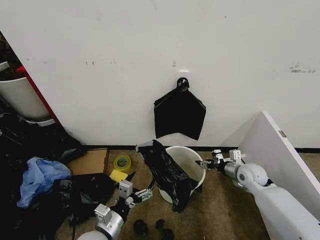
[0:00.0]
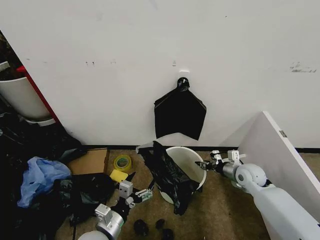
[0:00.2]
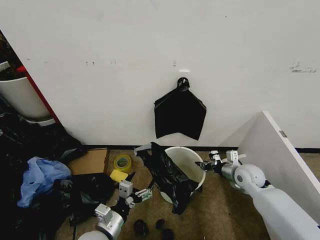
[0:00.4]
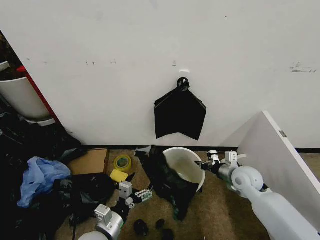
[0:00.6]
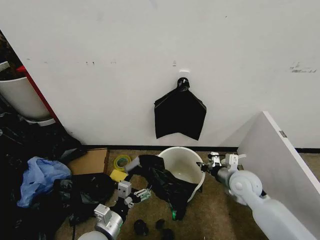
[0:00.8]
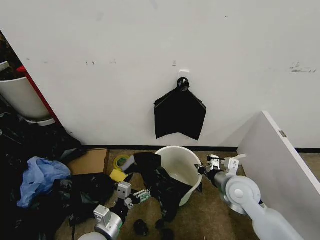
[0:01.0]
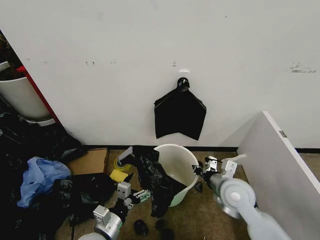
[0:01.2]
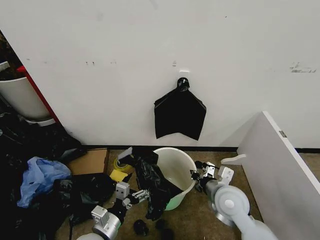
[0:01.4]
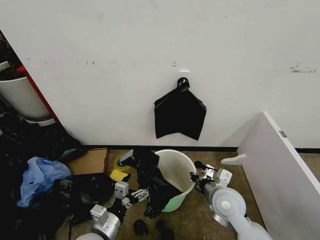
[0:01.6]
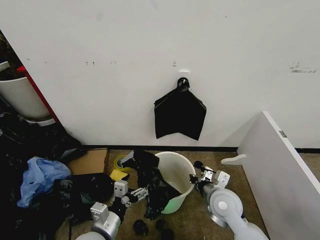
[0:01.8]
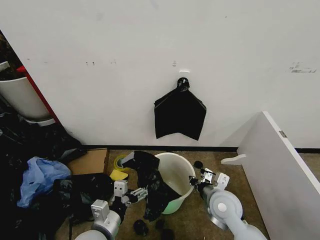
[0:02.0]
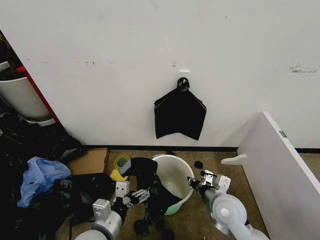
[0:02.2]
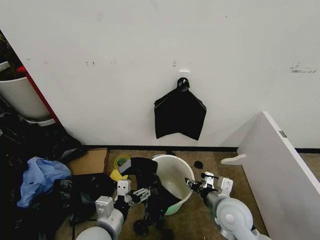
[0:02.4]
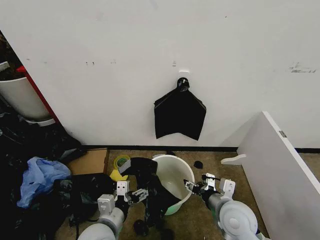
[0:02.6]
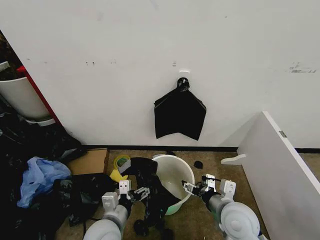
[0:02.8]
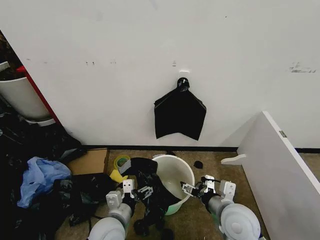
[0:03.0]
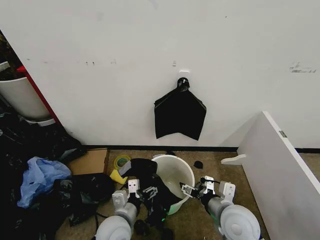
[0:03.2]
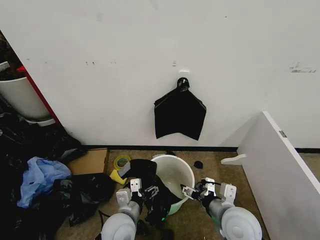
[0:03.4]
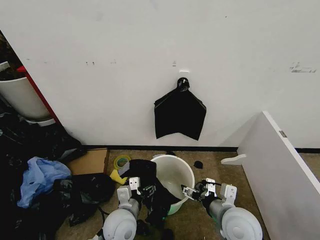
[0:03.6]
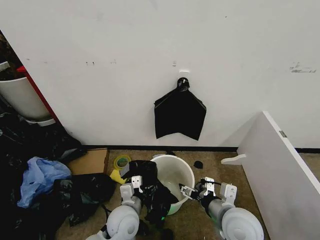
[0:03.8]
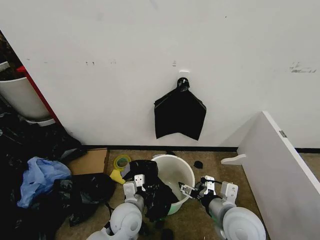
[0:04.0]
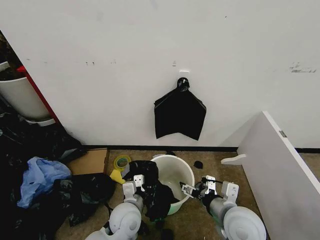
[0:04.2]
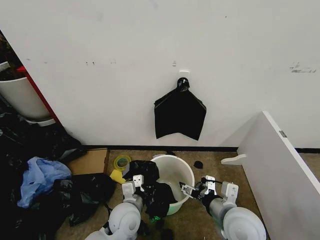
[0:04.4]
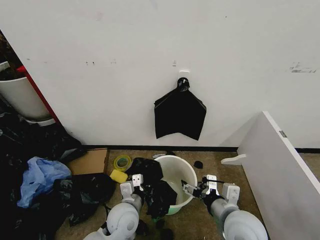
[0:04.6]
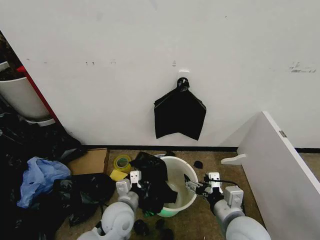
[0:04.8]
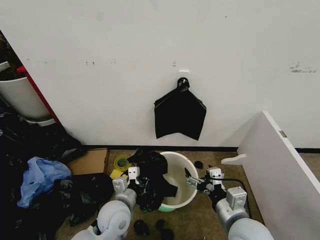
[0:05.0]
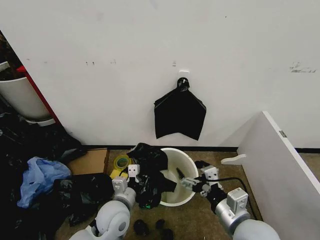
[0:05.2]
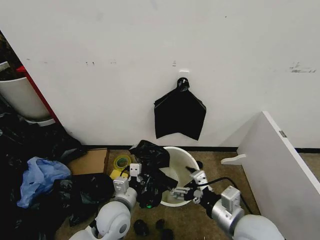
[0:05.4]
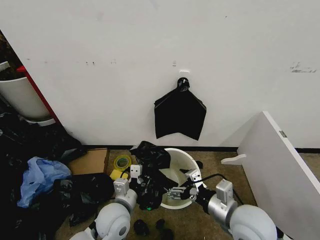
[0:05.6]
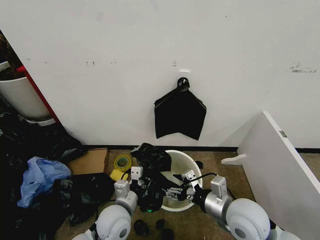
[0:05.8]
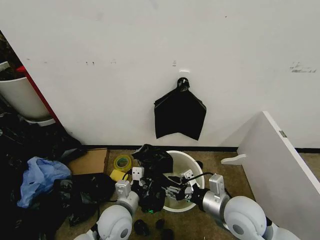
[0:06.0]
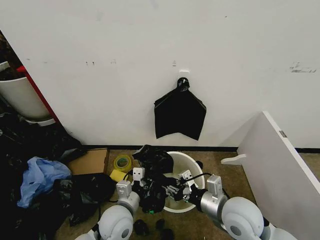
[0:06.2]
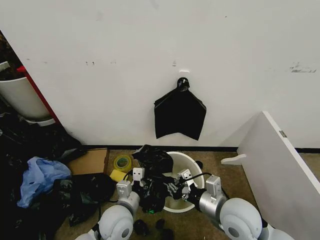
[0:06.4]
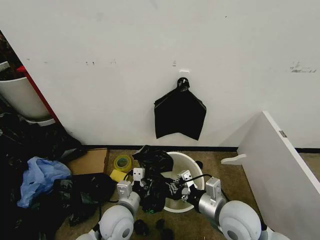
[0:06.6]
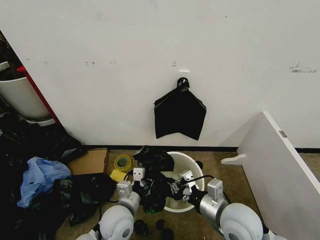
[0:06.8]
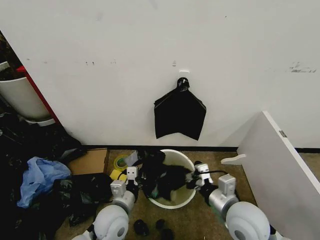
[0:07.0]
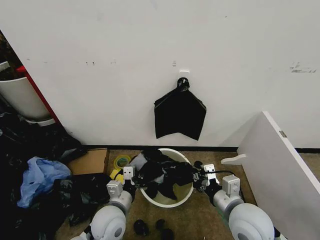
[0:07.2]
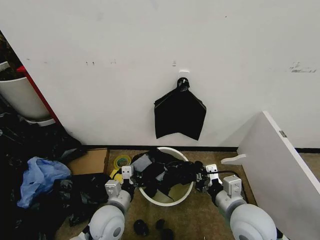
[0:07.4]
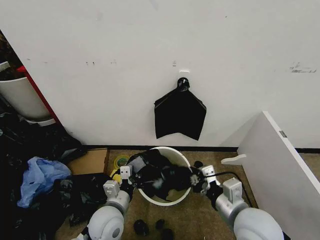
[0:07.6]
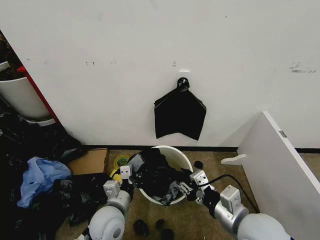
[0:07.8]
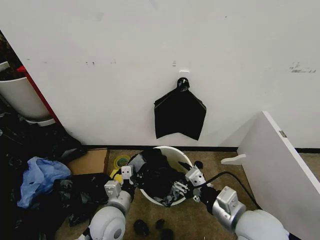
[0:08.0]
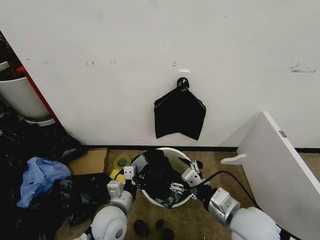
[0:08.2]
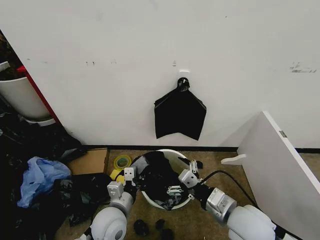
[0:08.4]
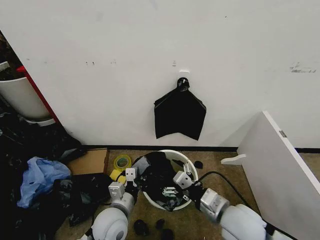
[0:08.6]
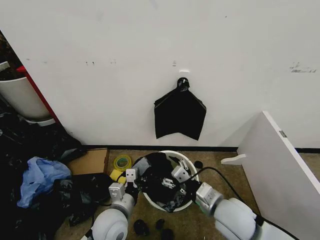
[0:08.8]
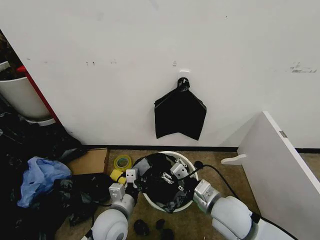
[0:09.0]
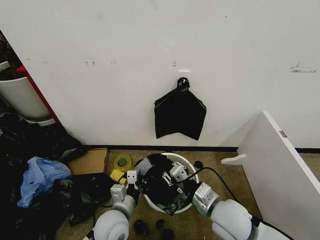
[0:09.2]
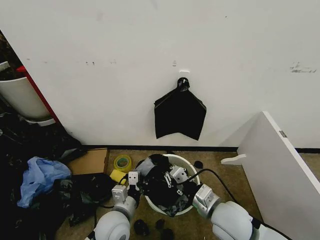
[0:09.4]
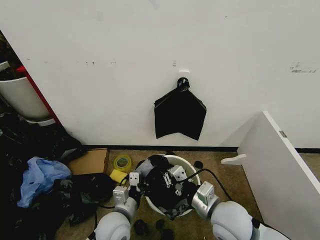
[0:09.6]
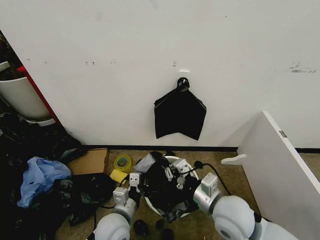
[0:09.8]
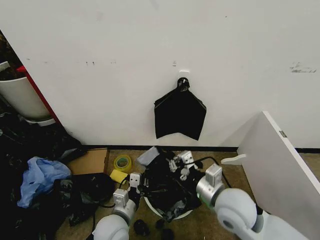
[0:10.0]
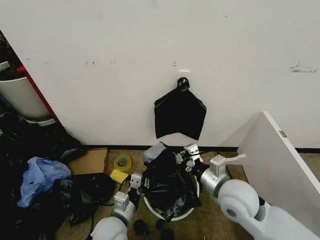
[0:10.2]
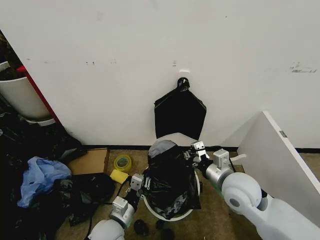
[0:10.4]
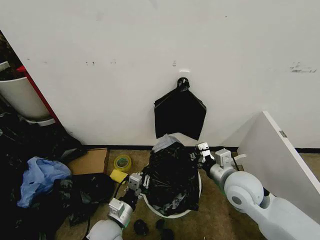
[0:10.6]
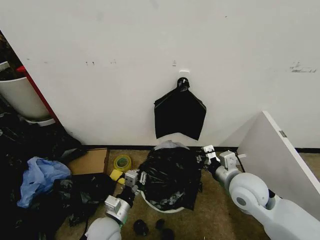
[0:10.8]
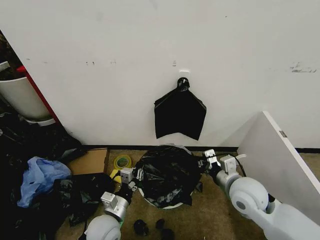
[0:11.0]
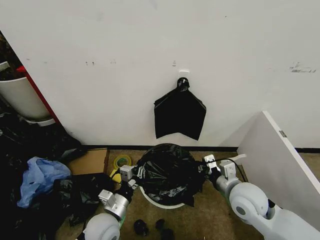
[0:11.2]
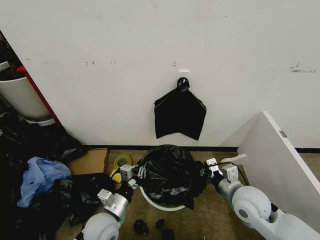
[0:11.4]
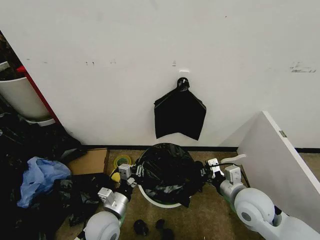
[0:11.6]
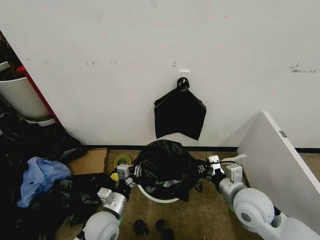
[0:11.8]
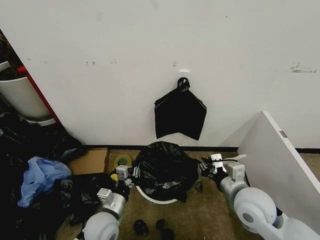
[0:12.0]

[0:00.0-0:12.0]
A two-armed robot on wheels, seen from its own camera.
Task of the whole recording: Place the garbage bag over the trash bin.
0:00.0 to 0:01.6: The right gripper goes approximately 20 cm to the left and backward, and closes up.
0:01.6 to 0:03.0: The left gripper shifts by approximately 5 cm. The right gripper shifts approximately 5 cm backward, and opens up.
0:03.0 to 0:04.4: The left gripper ends up some 5 cm from where it was, and closes up.
0:04.4 to 0:06.0: The right gripper closes its fingers. Meanwhile the left gripper closes up.
0:06.0 to 0:07.6: The right gripper closes up.
0:07.6 to 0:09.0: The right gripper changes place by roughly 5 cm, and opens up.
0:09.0 to 0:10.4: The right gripper shifts about 5 cm forward, and closes its fingers.

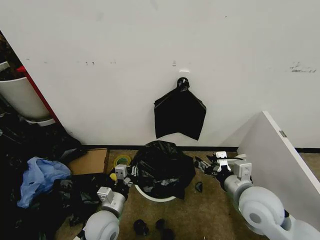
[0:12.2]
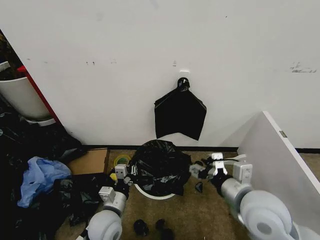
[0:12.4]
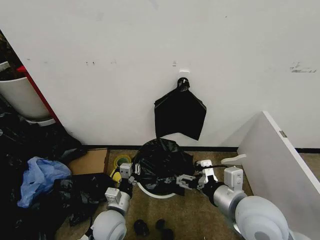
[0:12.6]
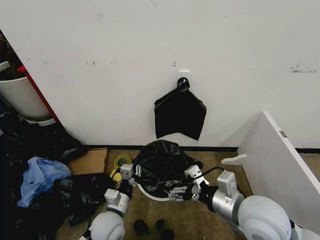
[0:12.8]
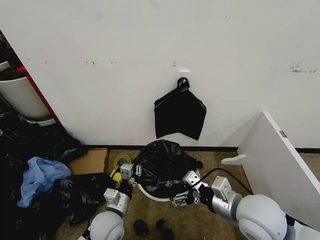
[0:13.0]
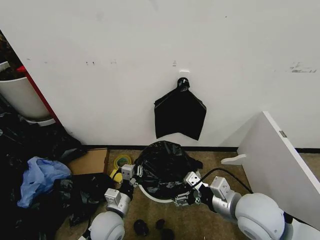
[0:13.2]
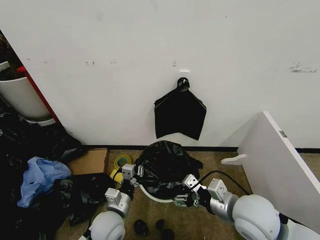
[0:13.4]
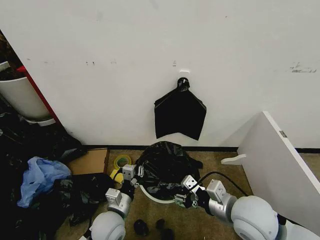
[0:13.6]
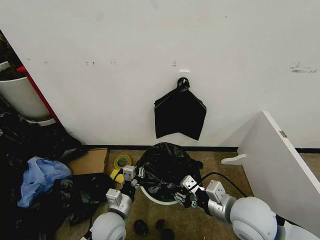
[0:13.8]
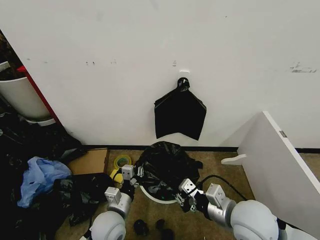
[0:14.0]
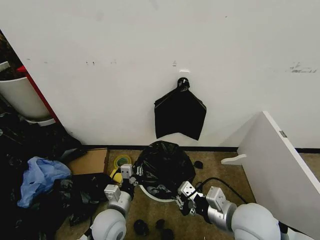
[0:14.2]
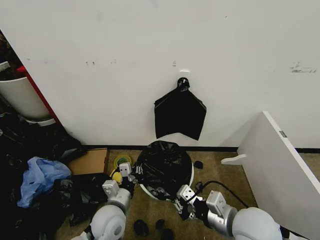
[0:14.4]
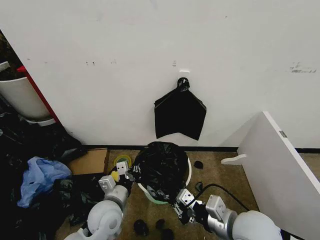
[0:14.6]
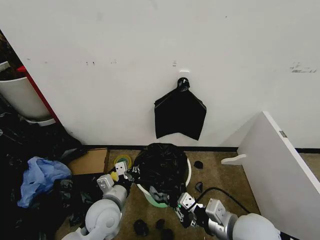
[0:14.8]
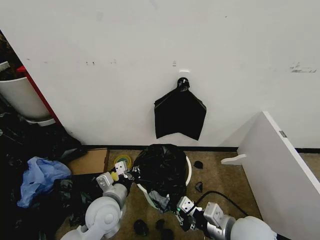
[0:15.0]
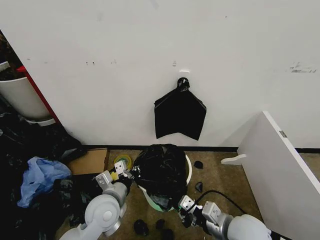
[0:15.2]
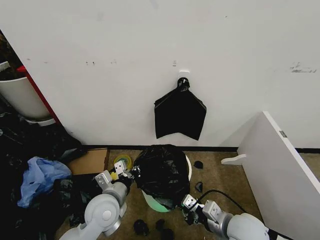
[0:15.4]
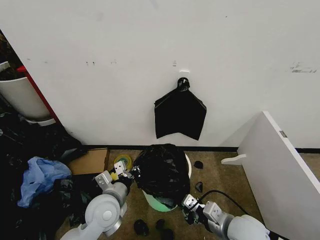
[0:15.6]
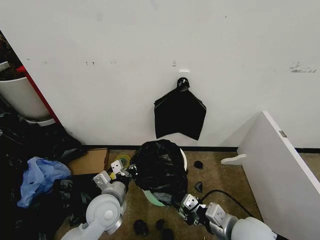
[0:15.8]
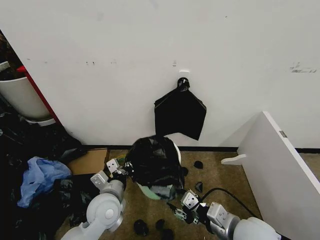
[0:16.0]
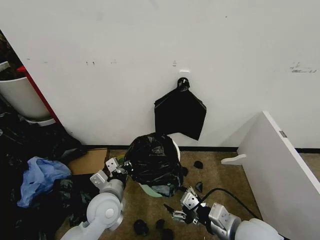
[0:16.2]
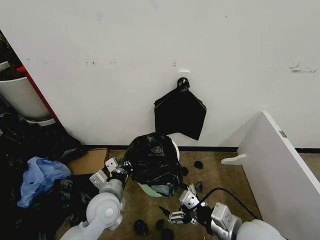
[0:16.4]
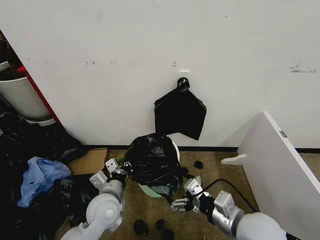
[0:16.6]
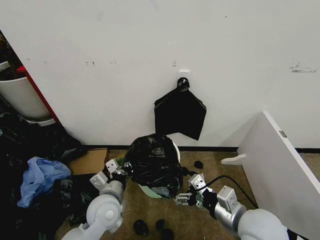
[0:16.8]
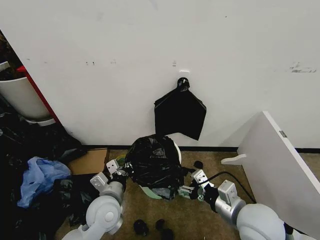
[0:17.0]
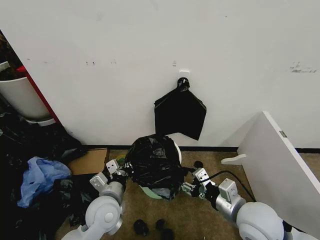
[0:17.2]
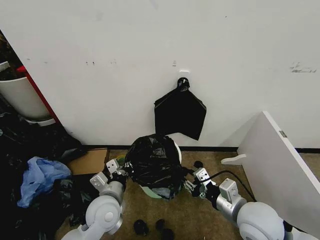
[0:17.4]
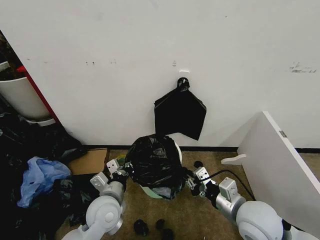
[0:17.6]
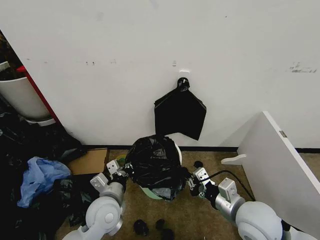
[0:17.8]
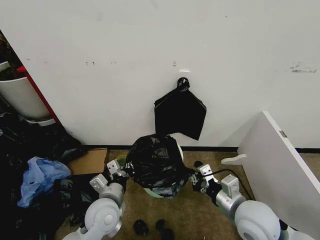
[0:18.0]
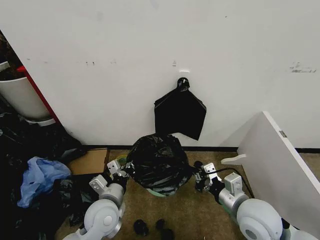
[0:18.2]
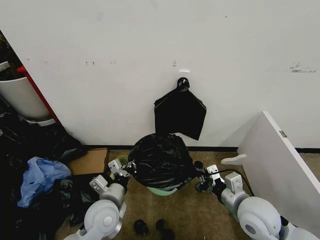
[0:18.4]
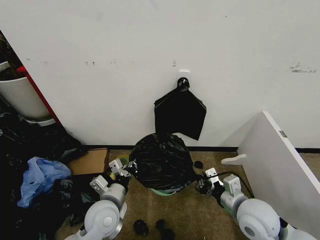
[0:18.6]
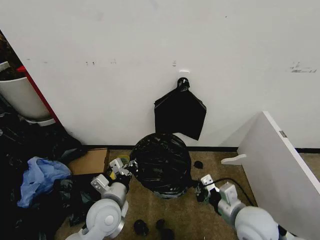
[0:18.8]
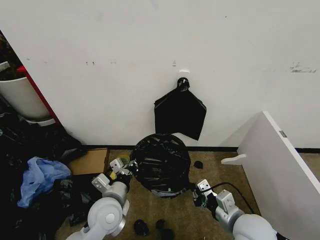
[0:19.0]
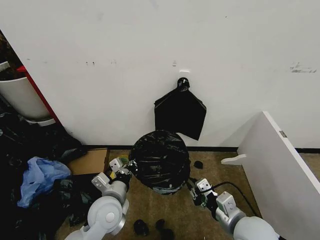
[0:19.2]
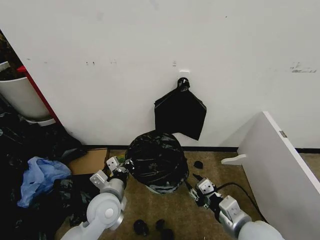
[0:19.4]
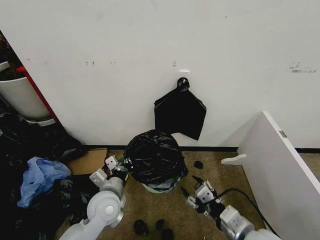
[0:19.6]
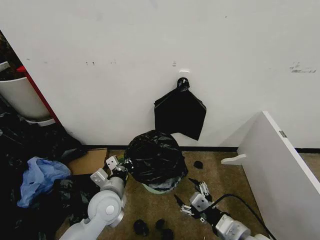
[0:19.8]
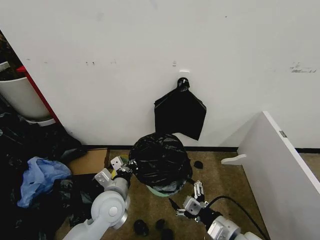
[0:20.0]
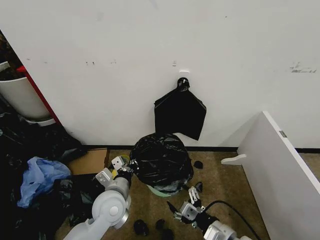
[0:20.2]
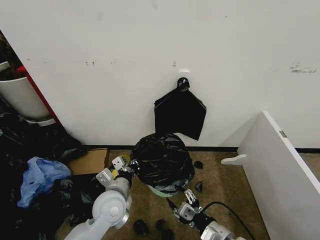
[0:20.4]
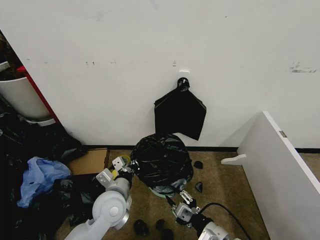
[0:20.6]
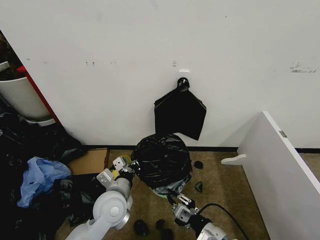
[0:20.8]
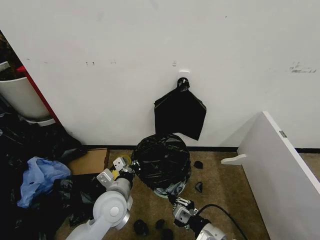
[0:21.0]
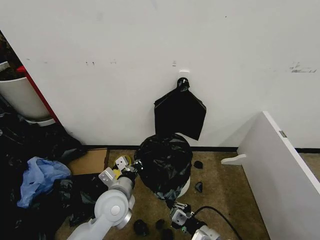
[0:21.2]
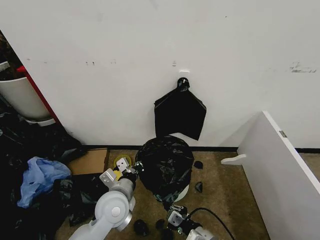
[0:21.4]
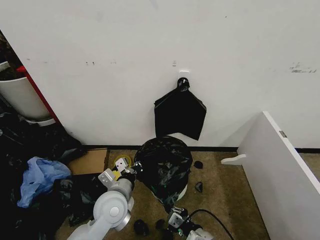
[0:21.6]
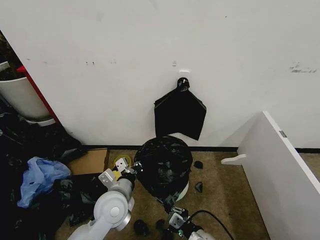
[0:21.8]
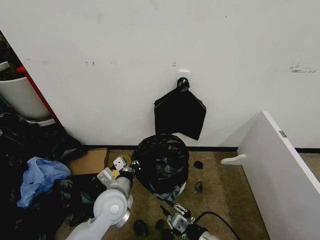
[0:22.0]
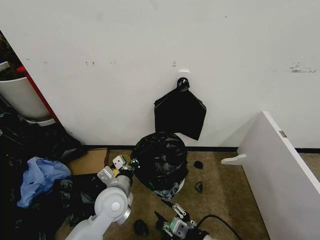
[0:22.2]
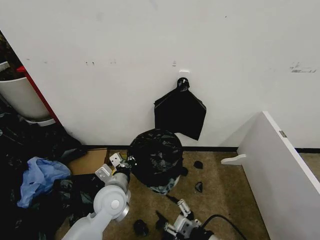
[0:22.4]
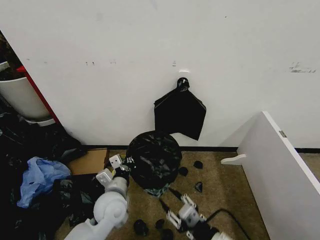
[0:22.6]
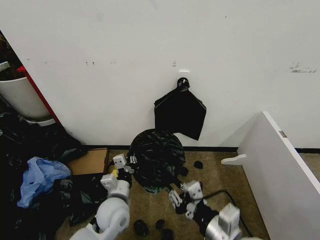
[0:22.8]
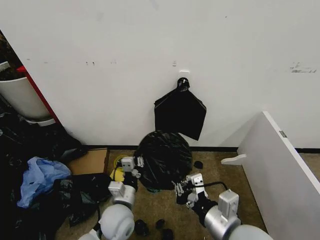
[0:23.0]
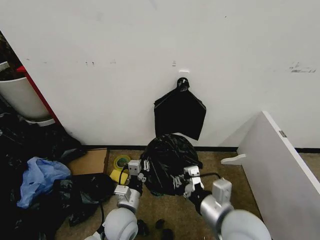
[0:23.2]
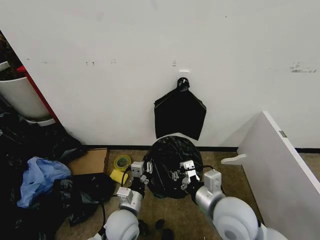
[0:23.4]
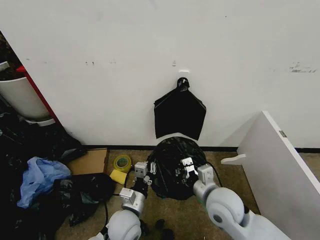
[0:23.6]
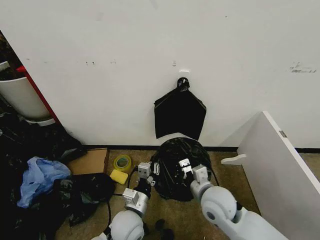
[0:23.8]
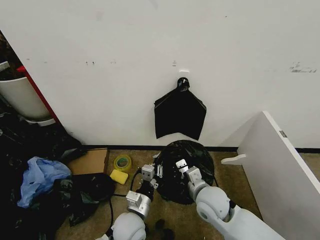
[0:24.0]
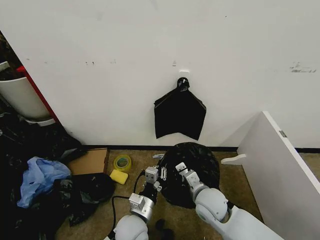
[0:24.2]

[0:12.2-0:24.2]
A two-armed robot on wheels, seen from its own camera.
Task of the whole recording: Place the garbage bag over the trash bin.
0:12.2 to 0:13.8: The right gripper opens, then closes once more.
0:13.8 to 0:15.2: The right gripper changes place by about 5 cm. Meanwhile the left gripper goes some 5 cm upward.
0:15.2 to 0:16.6: The right gripper opens its fingers.
0:16.6 to 0:18.2: The right gripper shifts by roughly 5 cm, and closes.
0:18.2 to 0:19.8: The right gripper travels backward by roughly 10 cm, and opens up.
0:19.8 to 0:21.2: The right gripper travels downward by about 10 cm, and closes.
0:21.2 to 0:22.6: The right gripper heads upward, covering some 10 cm, and opens its fingers.
0:22.6 to 0:24.2: The left gripper heads to the right and backward, covering approximately 10 cm; the right gripper goes some 20 cm forward, and closes up.
